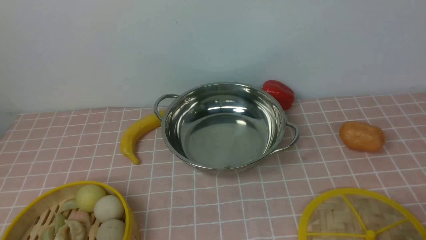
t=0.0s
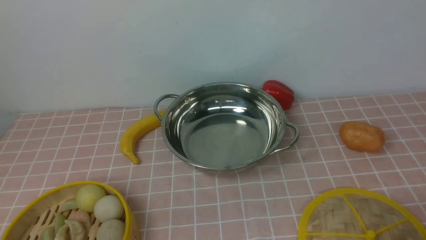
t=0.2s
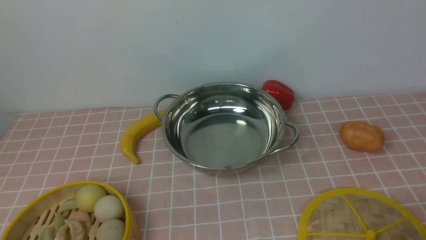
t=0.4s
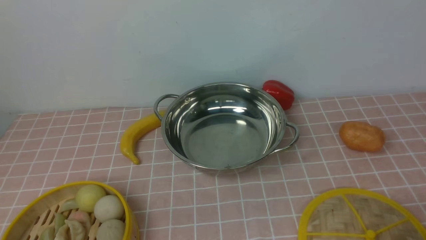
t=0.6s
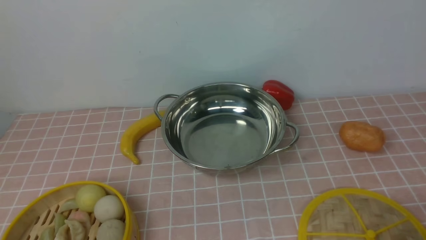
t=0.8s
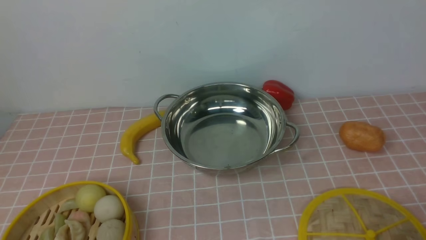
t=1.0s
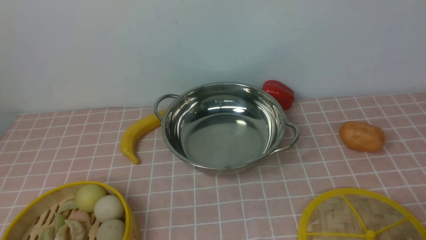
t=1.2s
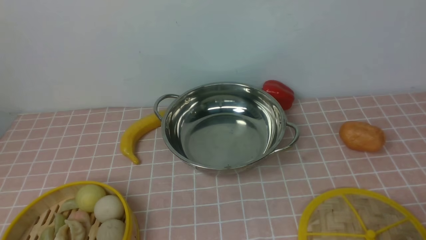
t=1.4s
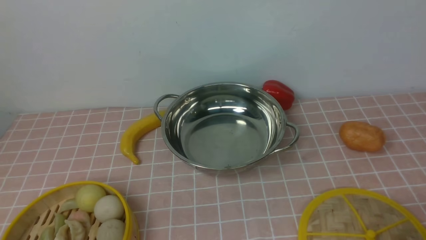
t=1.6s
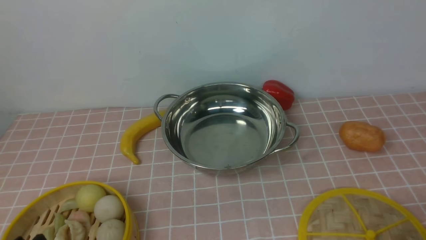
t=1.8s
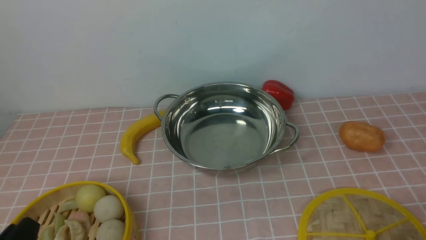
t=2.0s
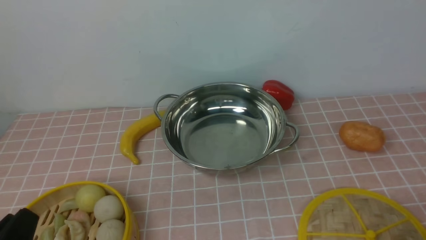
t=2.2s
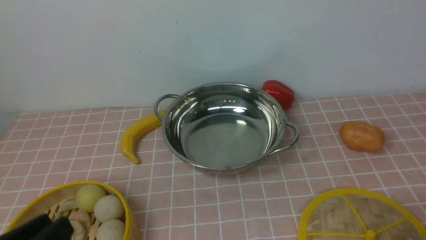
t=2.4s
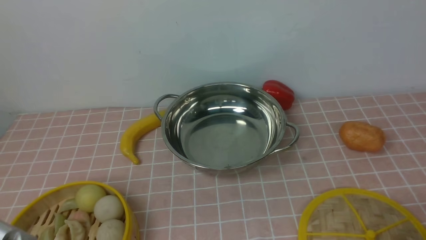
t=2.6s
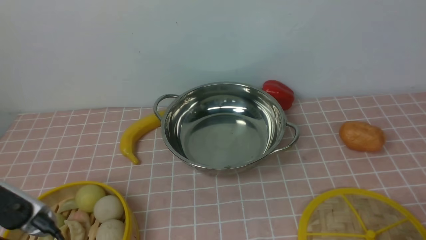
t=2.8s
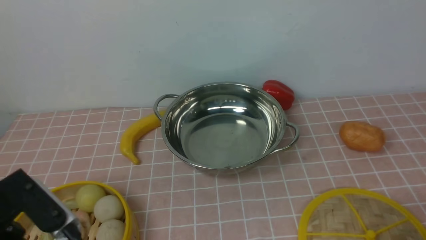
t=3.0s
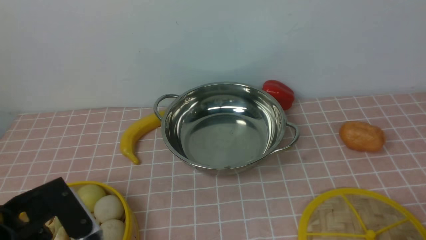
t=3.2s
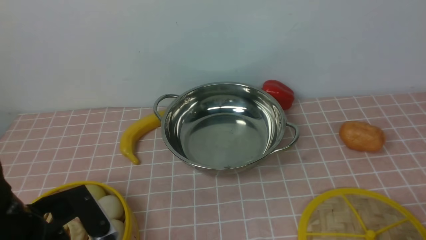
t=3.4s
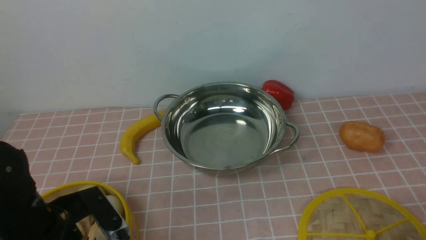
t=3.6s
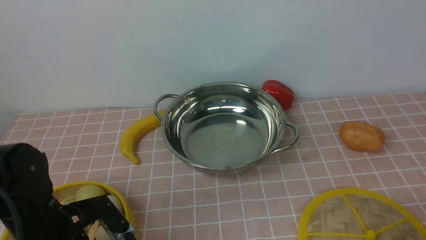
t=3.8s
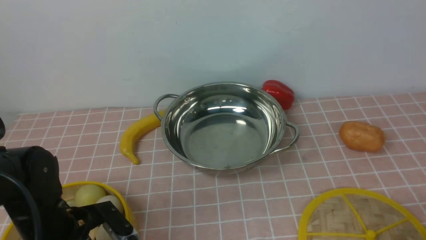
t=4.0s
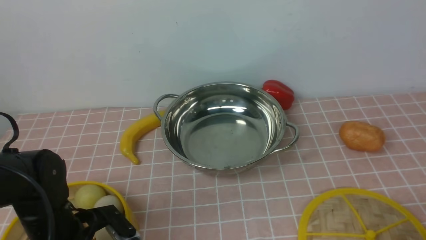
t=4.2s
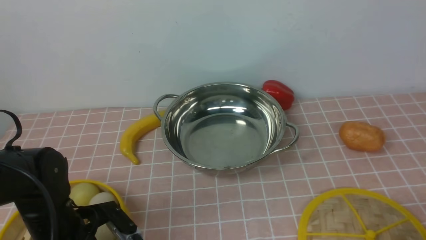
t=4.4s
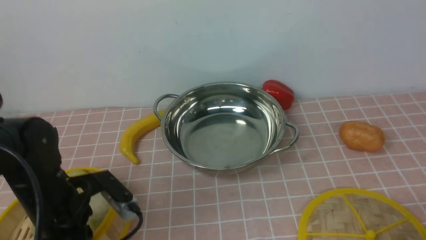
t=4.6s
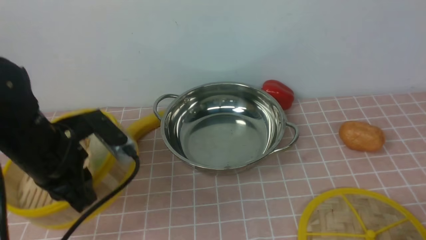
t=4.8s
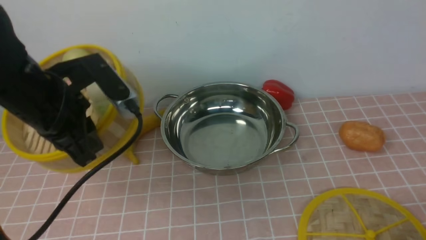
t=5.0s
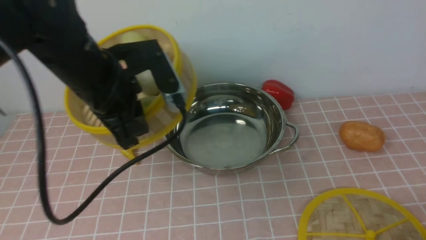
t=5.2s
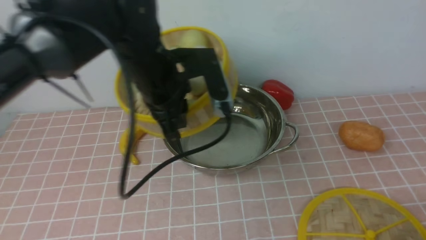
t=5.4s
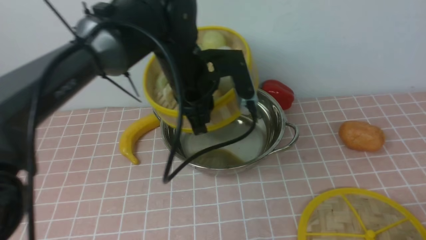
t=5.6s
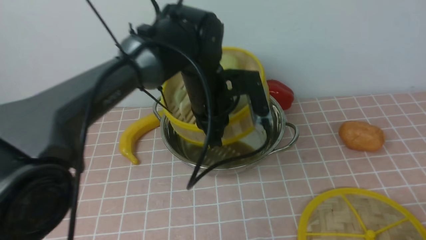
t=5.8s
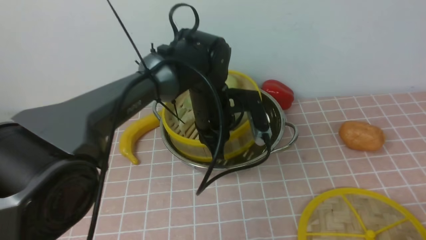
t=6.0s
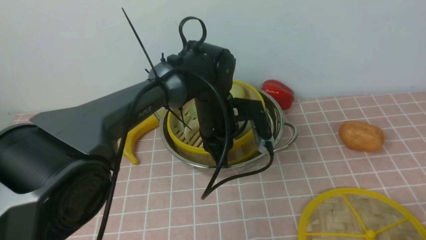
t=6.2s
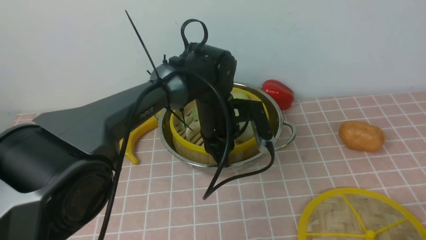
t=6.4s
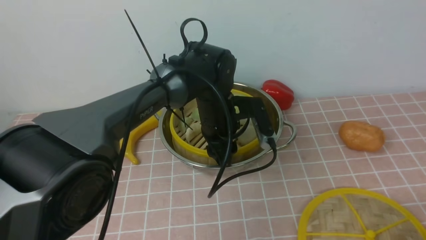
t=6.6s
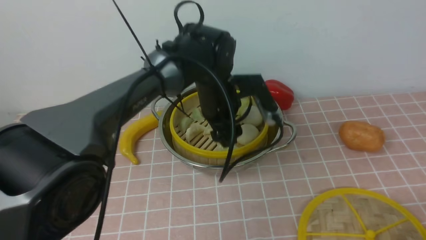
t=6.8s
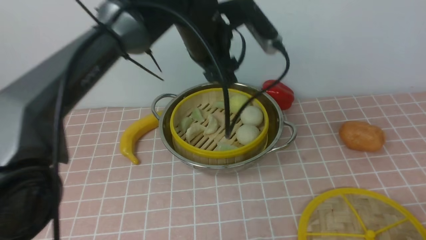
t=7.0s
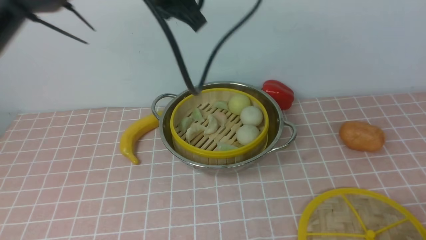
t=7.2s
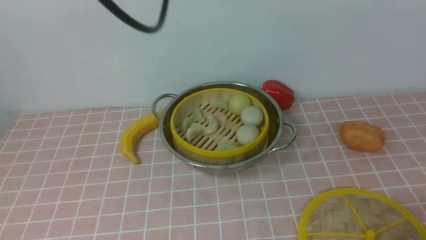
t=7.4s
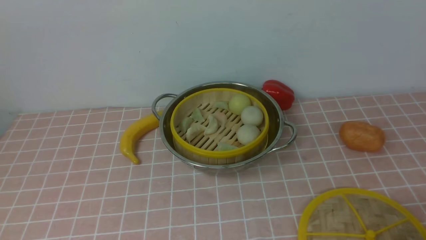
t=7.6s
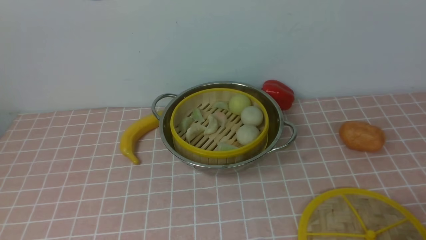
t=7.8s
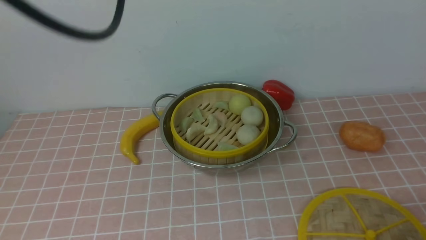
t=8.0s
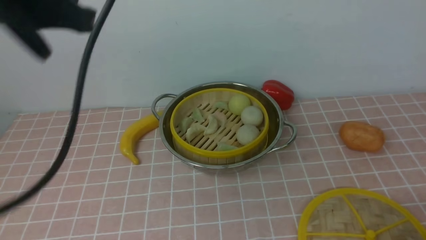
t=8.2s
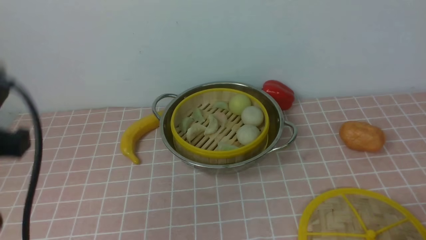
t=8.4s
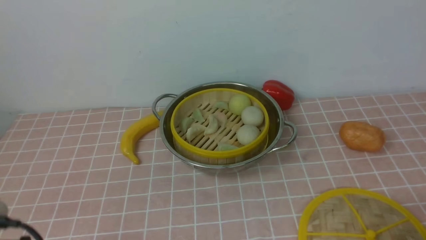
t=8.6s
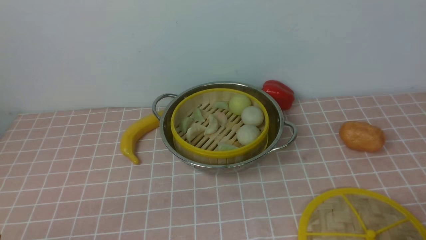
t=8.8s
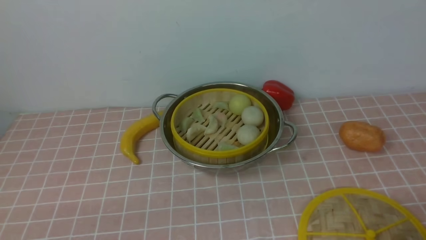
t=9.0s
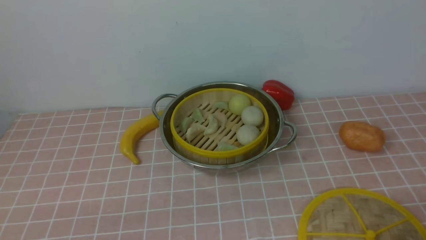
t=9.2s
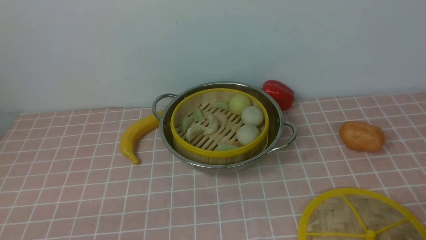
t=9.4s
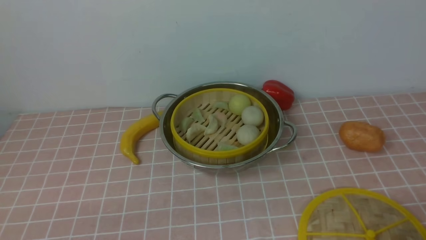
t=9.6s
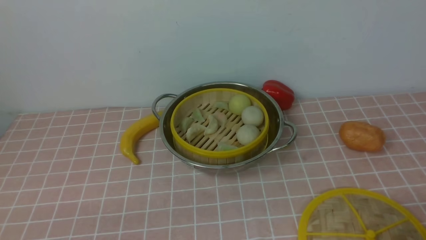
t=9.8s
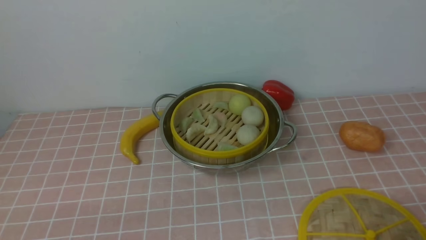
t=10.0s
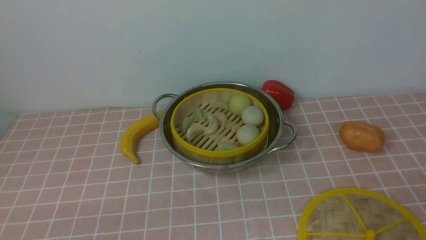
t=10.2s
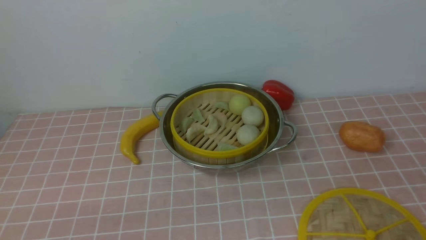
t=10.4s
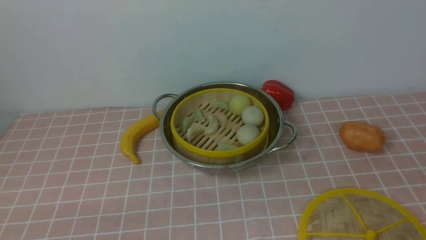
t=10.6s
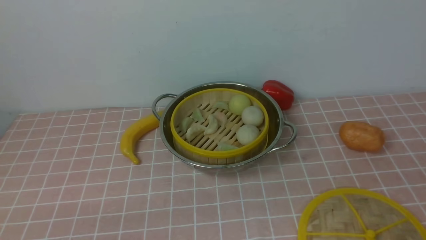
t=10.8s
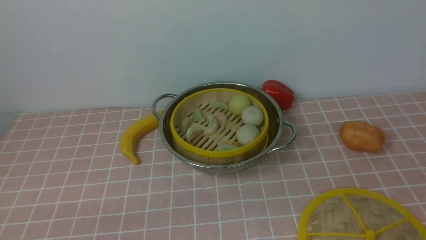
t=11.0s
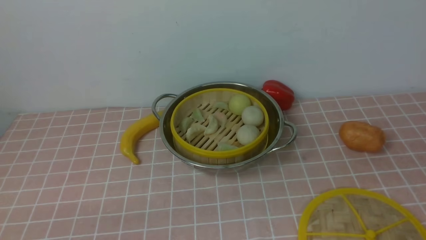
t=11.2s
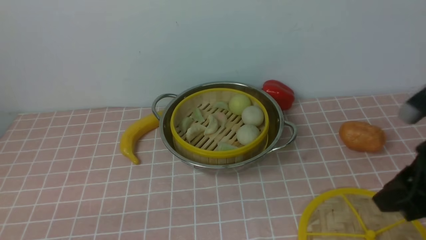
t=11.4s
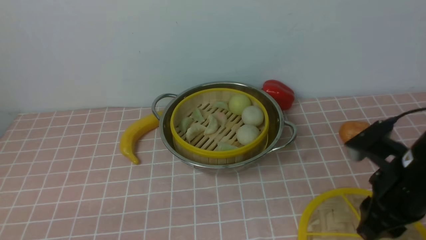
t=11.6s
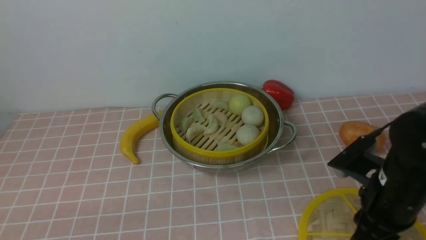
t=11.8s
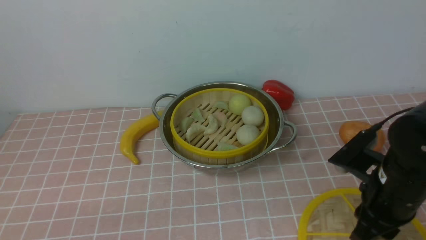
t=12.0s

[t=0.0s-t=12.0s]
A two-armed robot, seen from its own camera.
Task of the whole recording: place the steamer in the pot on the pink tablecloth, and put the lid on the steamer.
Step, t=0.0s to t=4.6s: use the left arm to lift the steamer closest to it.
Step, t=4.8s to t=6.6s: use the left arm to put the steamer into the iron steamer pot in the middle.
t=1.6s to t=3.0s: The left gripper travels upward and forward by some 10 cm.
t=3.0s to t=4.4s: The left gripper travels downward and forward by roughly 15 cm, and closes up.
t=4.4s to t=6.0s: The left gripper travels to the right and forward by roughly 25 cm.
t=6.0s to t=7.6s: The left gripper is displaced upward and to the left by approximately 35 cm, and opens and closes again.
t=10.4s to t=12.0s: The right gripper is displaced forward, to the left and downward by about 25 cm.

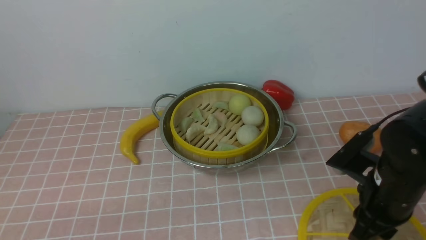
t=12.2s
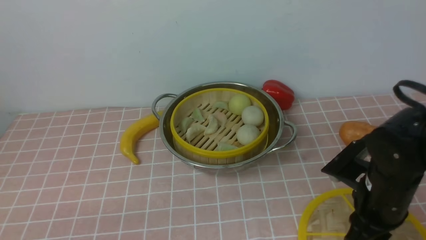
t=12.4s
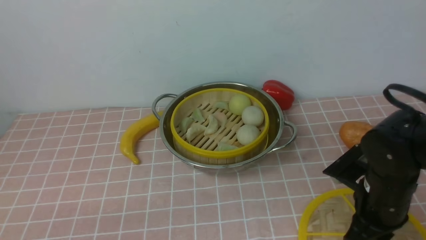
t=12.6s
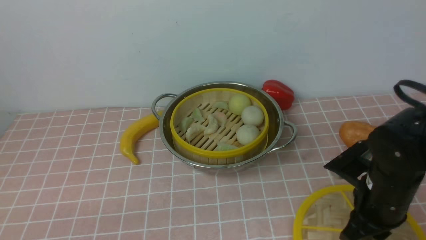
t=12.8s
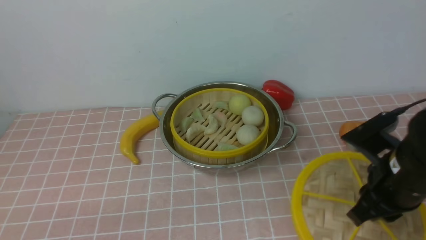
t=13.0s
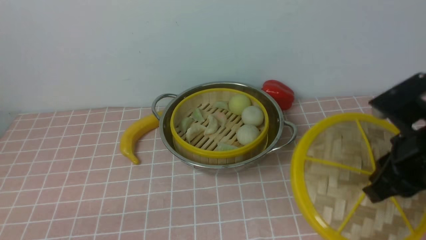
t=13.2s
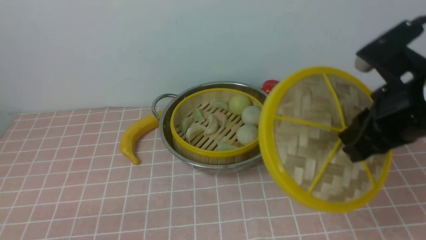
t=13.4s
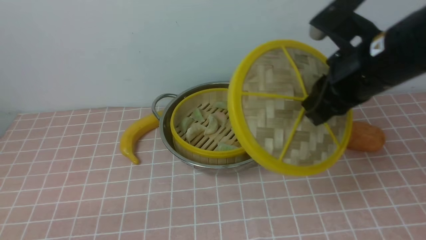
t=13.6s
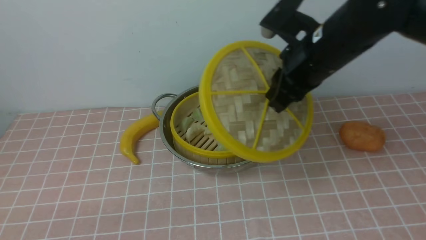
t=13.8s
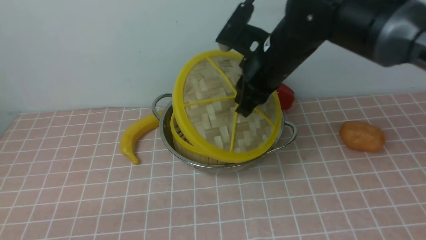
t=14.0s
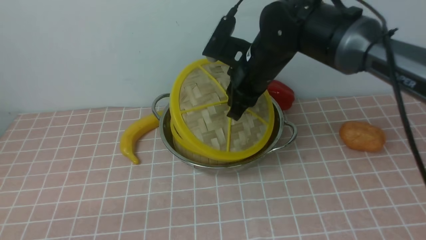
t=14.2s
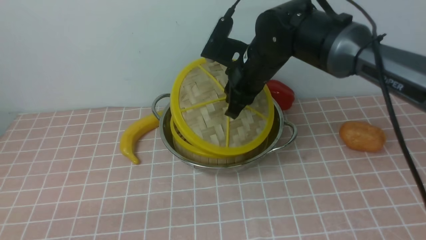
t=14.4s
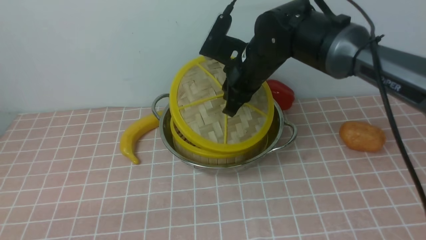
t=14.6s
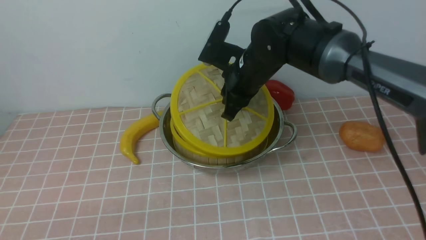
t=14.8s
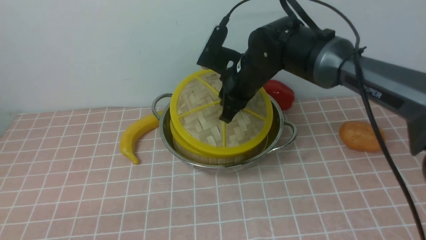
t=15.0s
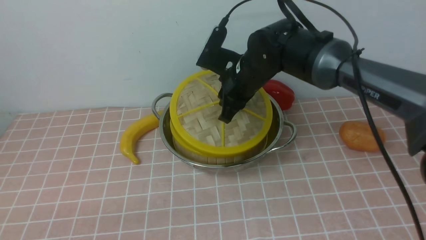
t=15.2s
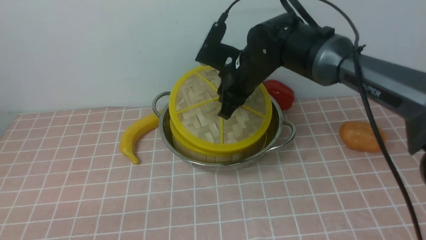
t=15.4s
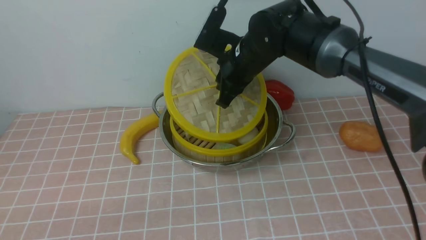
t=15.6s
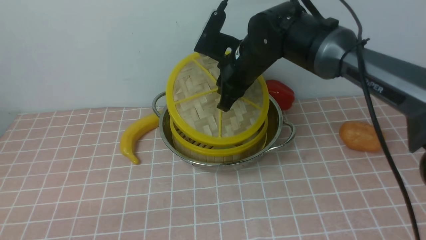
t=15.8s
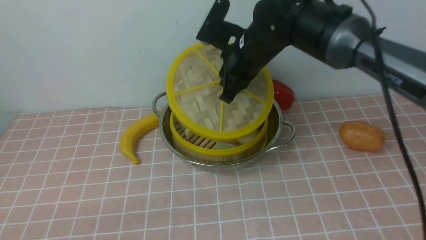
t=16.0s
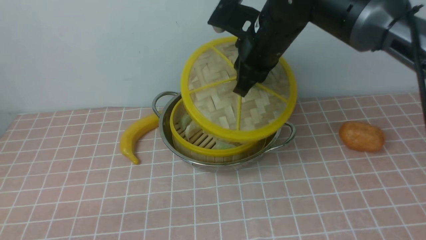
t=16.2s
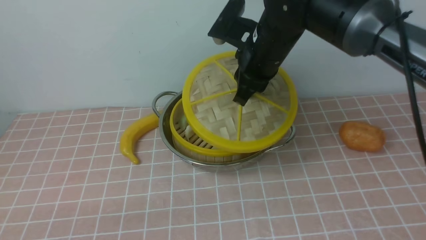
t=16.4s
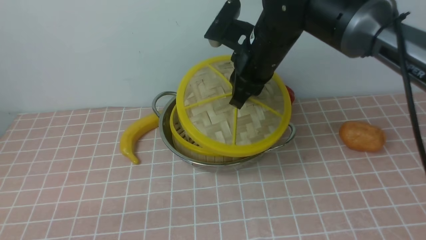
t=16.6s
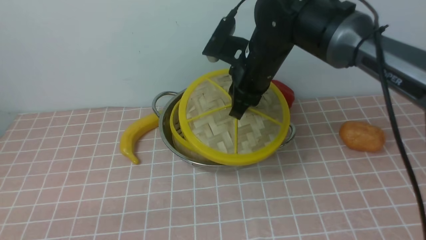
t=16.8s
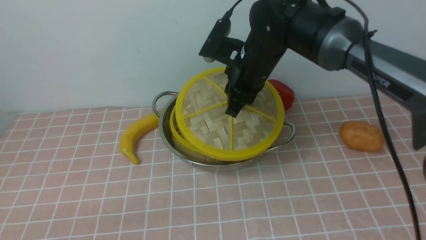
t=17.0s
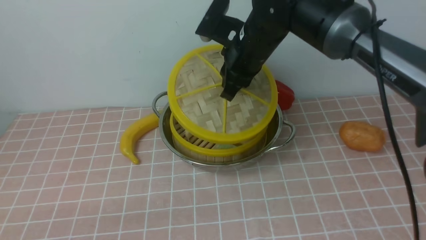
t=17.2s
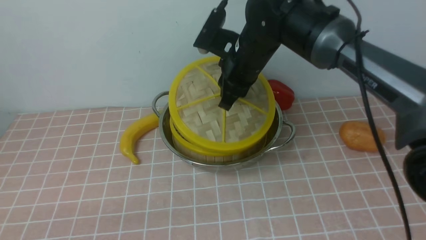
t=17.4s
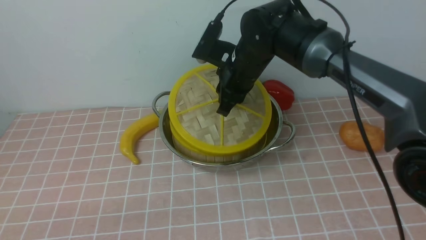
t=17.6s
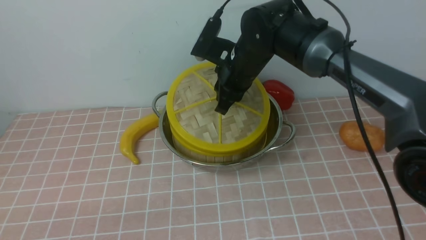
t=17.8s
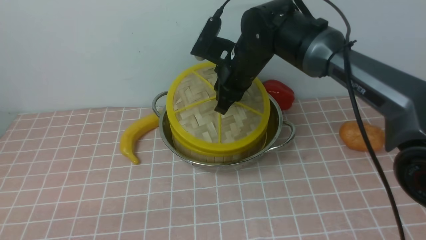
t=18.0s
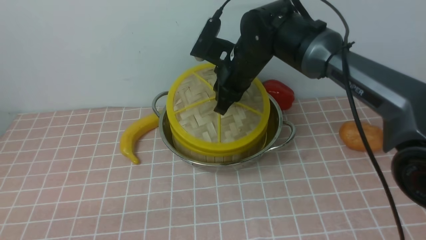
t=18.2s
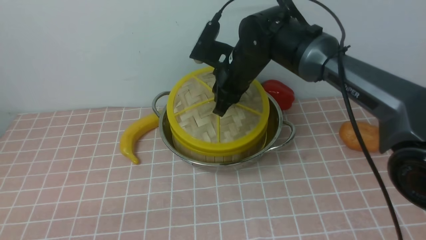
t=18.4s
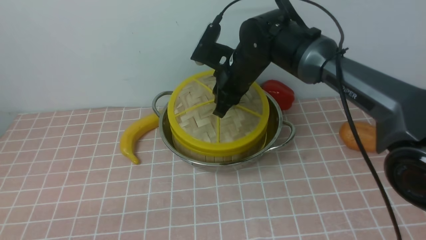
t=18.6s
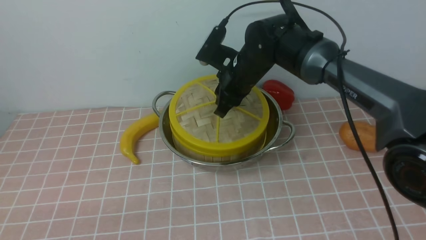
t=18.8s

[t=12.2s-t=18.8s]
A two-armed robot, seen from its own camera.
Task of the whole recording: place the steamer in the pot on the pink tablecloth, and put the lid on the steamer.
t=12.2s to t=13.8s: The right gripper travels upward, forward and to the left by about 20 cm, and closes its fingers.
t=13.8s to t=15.4s: The right gripper heads forward, to the left and downward, covering approximately 15 cm.
t=17.2s to t=18.8s: The right gripper travels downward by about 5 cm.
